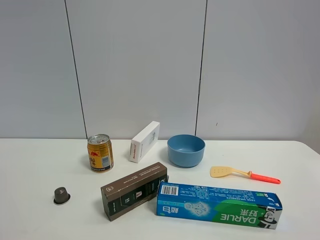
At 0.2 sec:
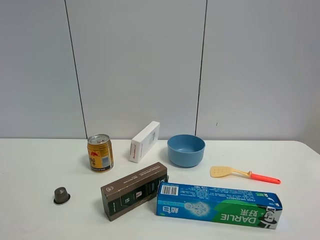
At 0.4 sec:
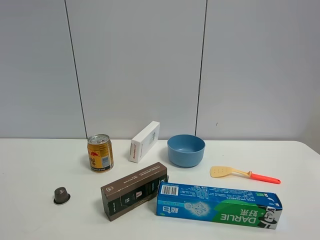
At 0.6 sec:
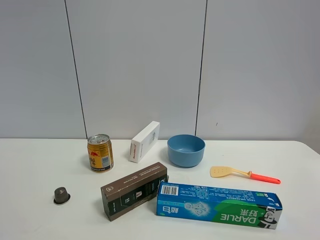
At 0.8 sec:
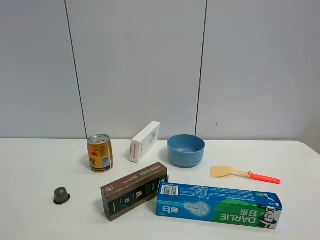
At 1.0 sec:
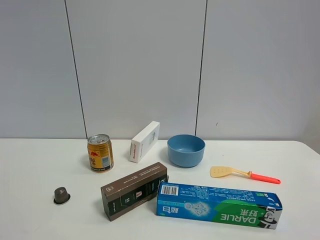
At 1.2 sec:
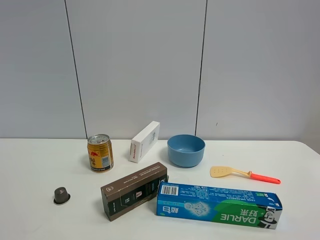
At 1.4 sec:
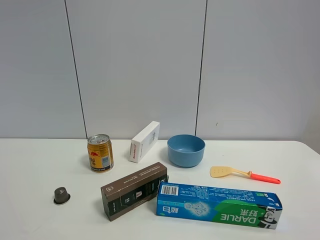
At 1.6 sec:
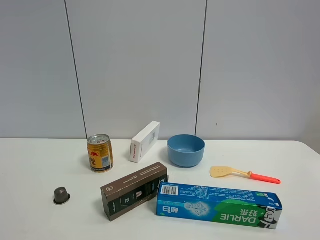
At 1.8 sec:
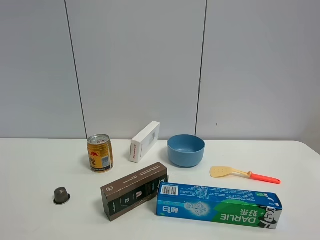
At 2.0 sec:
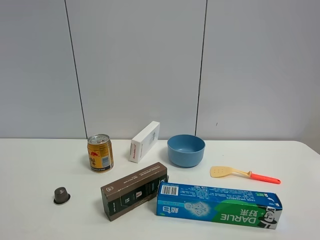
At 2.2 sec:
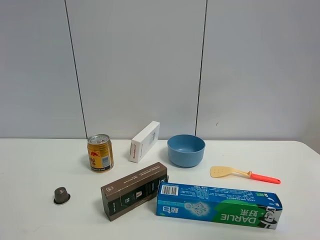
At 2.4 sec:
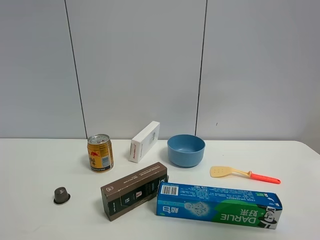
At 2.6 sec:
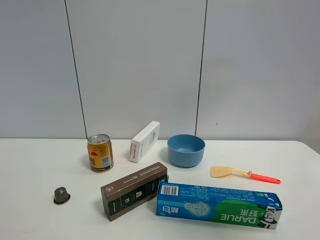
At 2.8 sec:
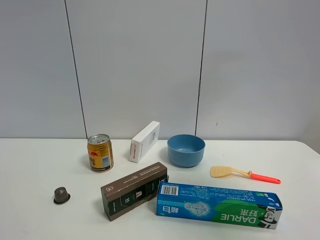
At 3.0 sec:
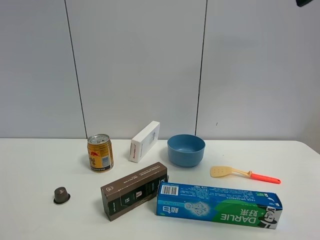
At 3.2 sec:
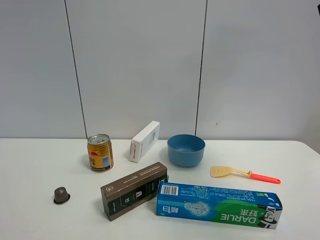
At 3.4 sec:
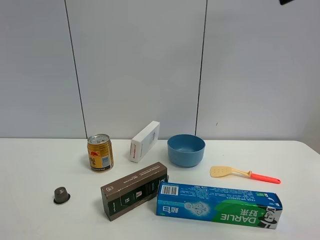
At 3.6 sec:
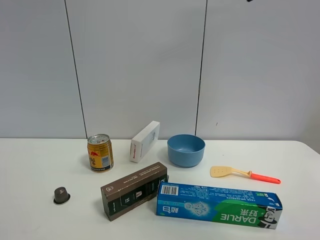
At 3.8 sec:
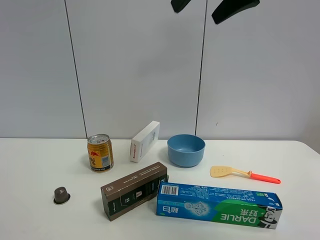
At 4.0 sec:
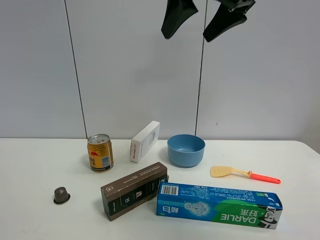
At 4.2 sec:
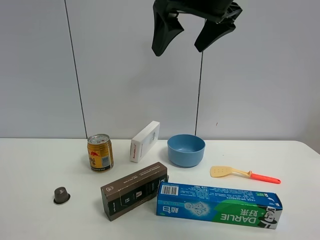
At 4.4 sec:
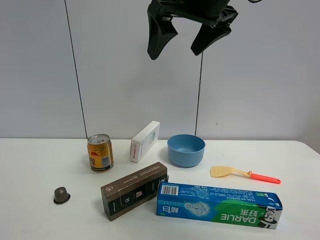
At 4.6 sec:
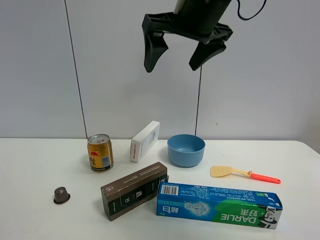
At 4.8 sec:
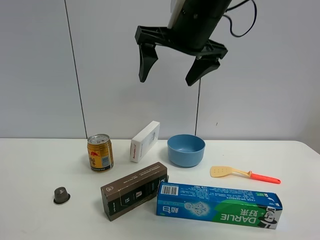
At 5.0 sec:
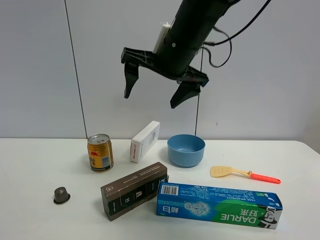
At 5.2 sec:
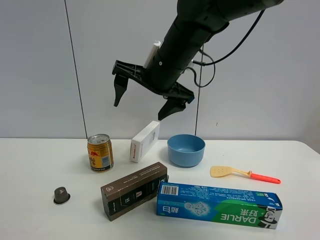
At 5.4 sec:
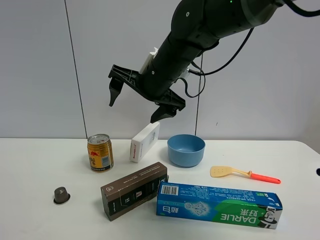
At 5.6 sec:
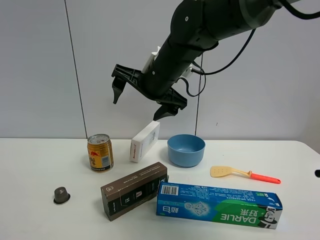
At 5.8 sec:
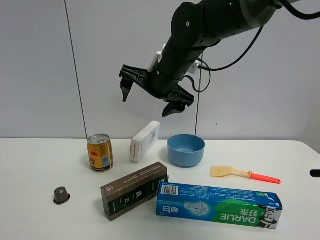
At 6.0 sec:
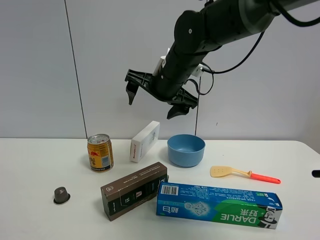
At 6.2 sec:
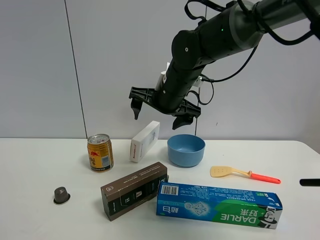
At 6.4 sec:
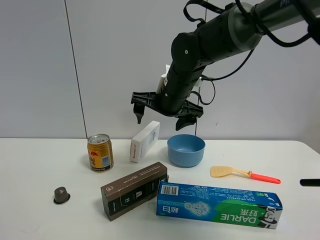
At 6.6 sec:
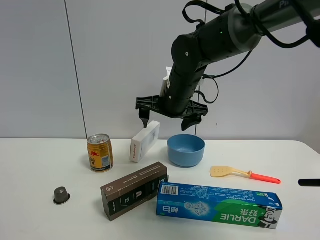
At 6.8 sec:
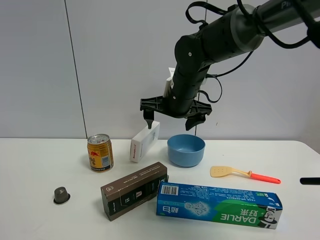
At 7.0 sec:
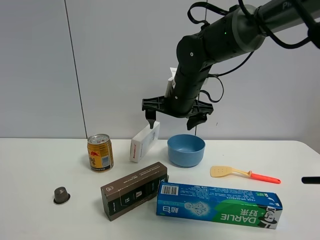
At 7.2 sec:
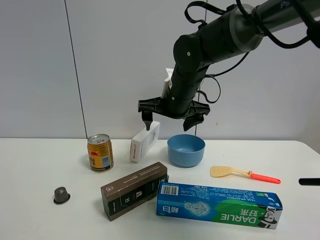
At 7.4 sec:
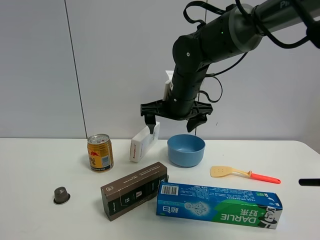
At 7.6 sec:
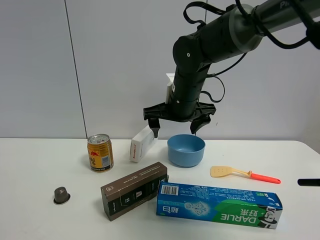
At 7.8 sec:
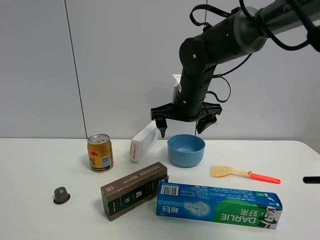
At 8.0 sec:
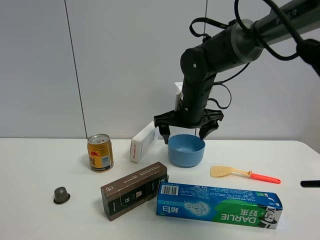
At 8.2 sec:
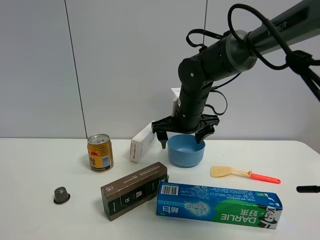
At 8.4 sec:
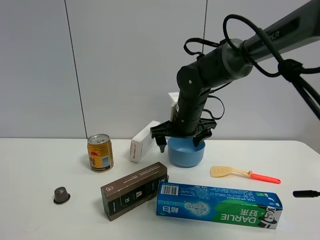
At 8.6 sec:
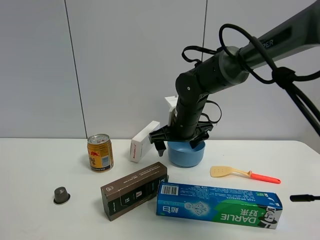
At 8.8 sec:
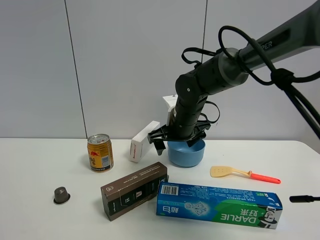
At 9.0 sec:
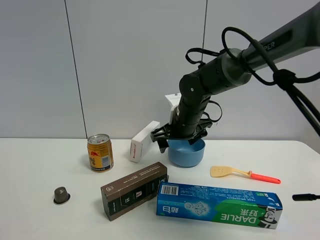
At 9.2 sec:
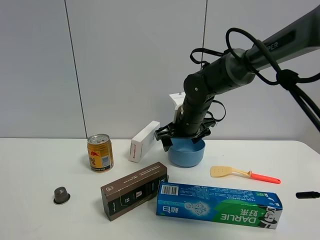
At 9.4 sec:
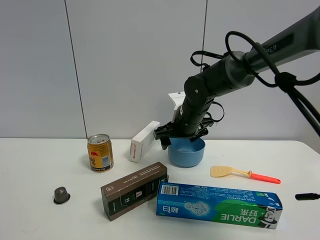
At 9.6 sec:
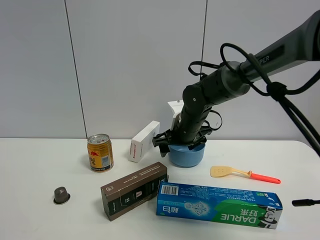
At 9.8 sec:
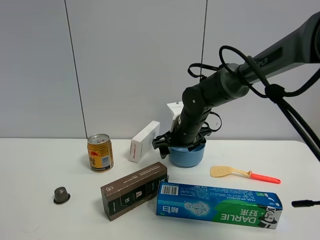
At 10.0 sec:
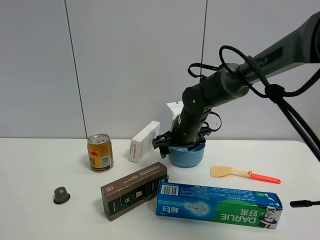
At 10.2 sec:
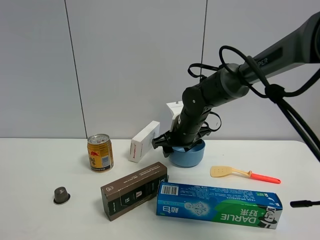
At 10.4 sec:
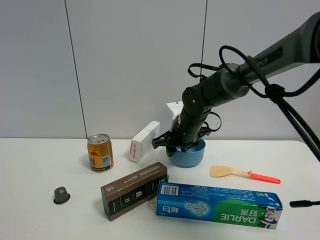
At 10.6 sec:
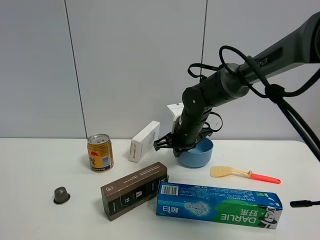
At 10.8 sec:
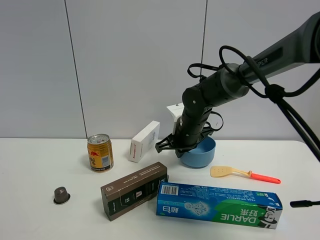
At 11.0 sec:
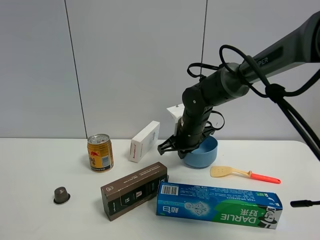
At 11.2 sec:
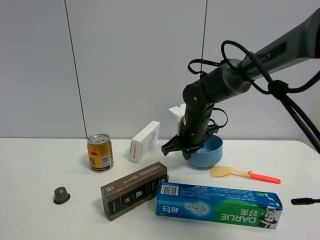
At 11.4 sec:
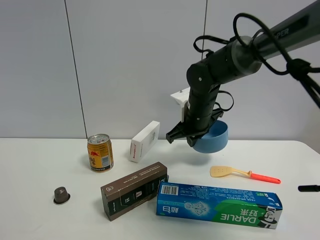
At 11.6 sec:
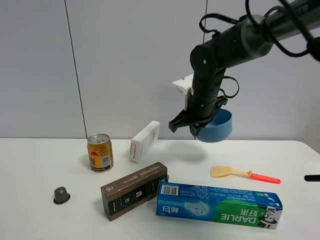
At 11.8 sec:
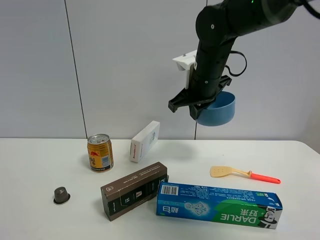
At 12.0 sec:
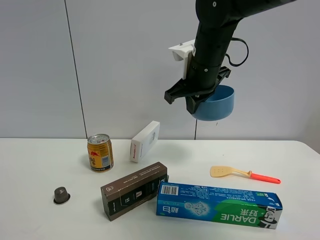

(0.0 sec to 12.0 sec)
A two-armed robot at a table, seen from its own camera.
Task of the whole recording: the gripper move the object.
Step, 0.0 sec - 10.6 sec: Grasp the blue bowl with the right gripper.
0.0 sec - 1.6 sec: Neither gripper changes place.
1.6 sec - 3.0 sec: The right gripper is displaced forward and upward by approximately 30 cm.
3.0 sec - 4.4 sec: The right gripper is displaced to the left by roughly 20 cm.
4.4 sec - 6.0 sec: The right gripper moves downward and forward, some 15 cm.
7.6 sec - 9.0 sec: The right gripper travels downward by about 5 cm.
9.0 sec - 10.4 sec: The right gripper closes its fingers.
10.4 sec - 12.0 sec: The right gripper moves upward and backward, approximately 15 cm, and closes up.

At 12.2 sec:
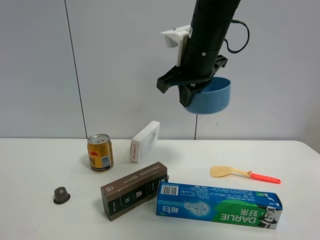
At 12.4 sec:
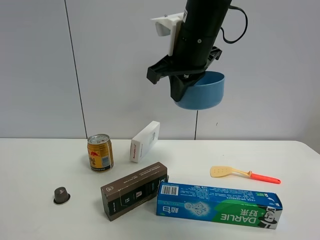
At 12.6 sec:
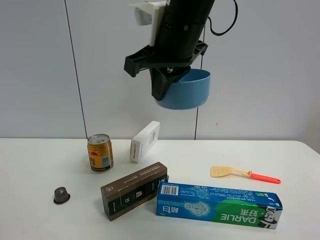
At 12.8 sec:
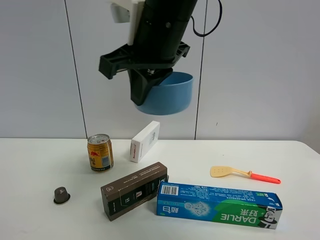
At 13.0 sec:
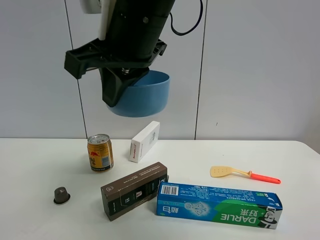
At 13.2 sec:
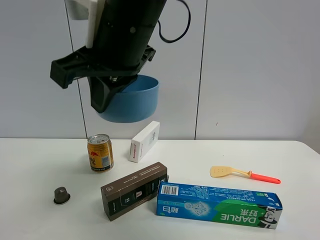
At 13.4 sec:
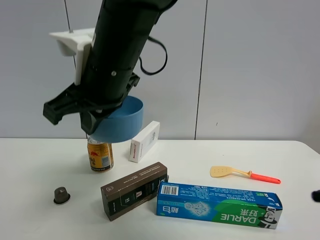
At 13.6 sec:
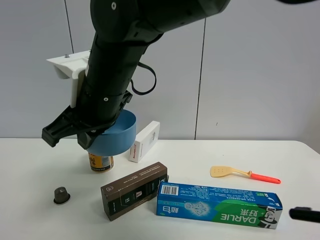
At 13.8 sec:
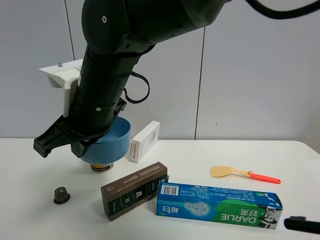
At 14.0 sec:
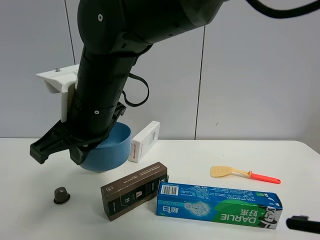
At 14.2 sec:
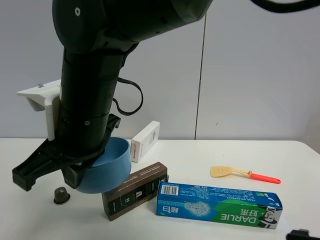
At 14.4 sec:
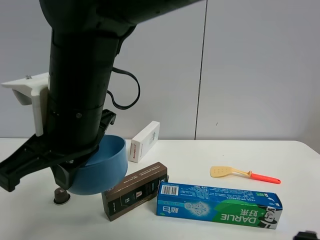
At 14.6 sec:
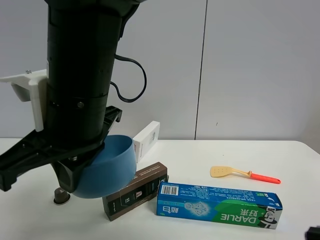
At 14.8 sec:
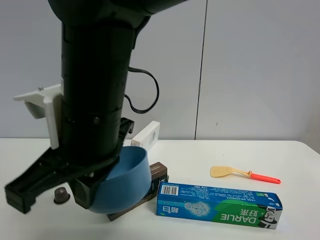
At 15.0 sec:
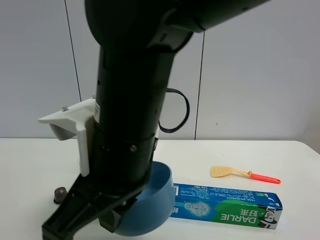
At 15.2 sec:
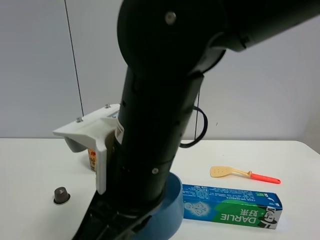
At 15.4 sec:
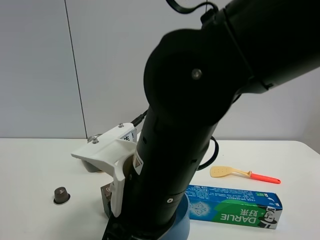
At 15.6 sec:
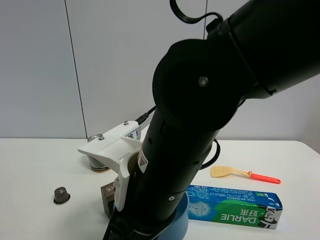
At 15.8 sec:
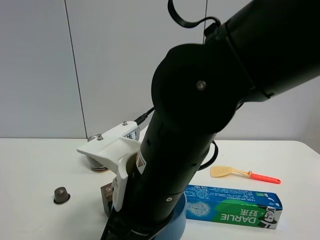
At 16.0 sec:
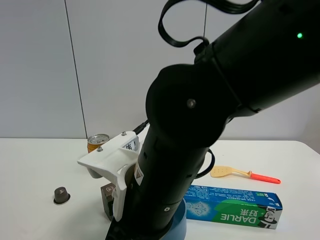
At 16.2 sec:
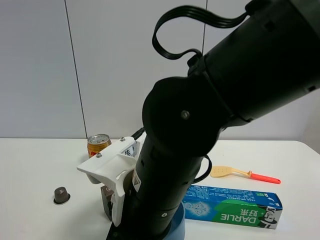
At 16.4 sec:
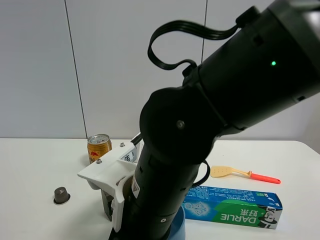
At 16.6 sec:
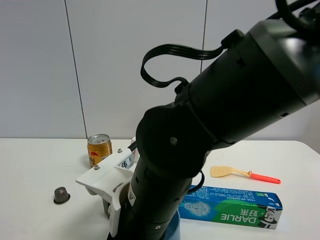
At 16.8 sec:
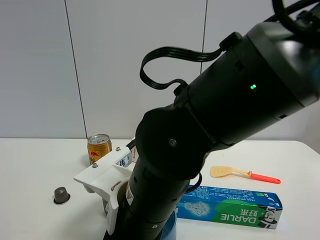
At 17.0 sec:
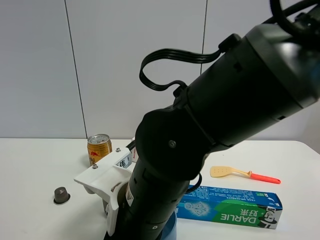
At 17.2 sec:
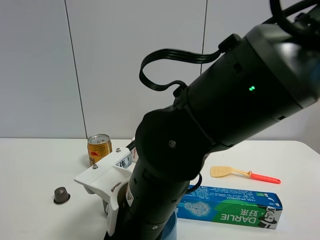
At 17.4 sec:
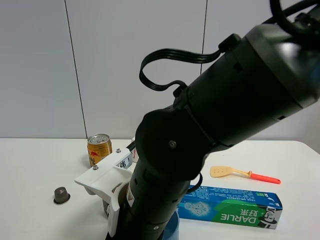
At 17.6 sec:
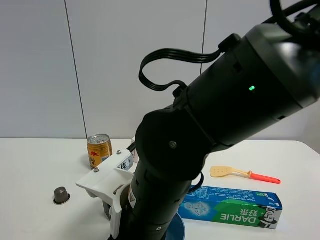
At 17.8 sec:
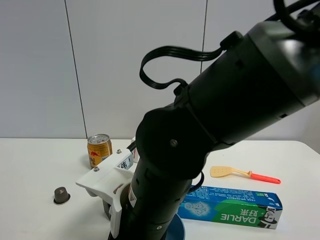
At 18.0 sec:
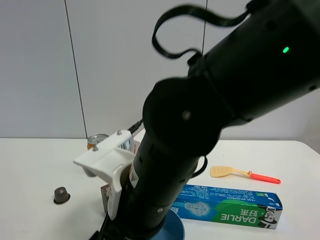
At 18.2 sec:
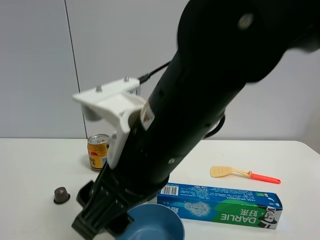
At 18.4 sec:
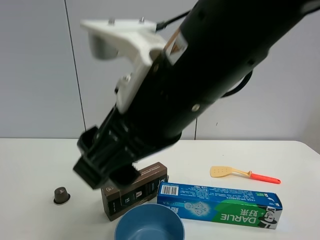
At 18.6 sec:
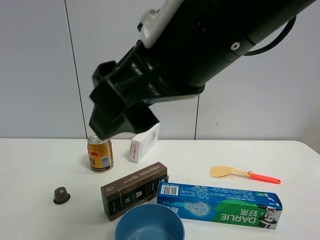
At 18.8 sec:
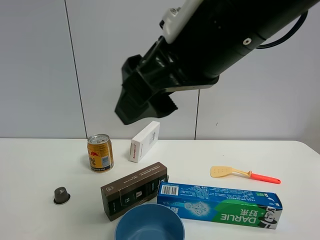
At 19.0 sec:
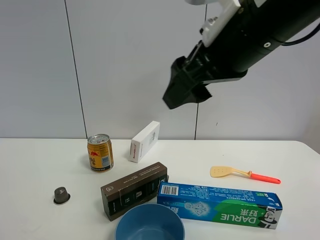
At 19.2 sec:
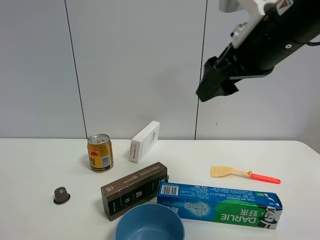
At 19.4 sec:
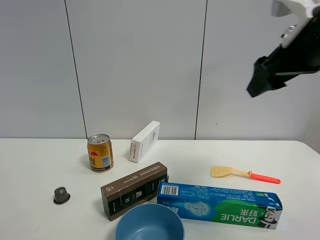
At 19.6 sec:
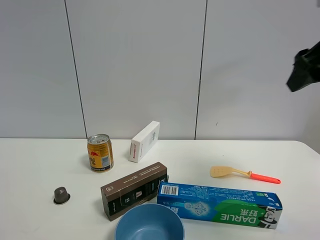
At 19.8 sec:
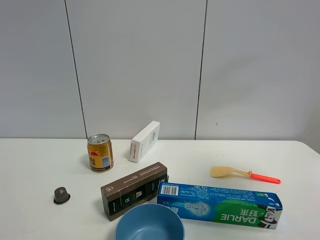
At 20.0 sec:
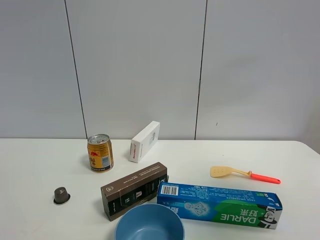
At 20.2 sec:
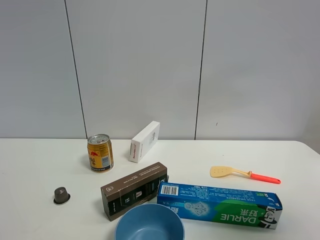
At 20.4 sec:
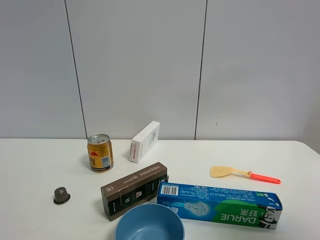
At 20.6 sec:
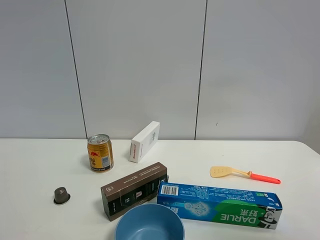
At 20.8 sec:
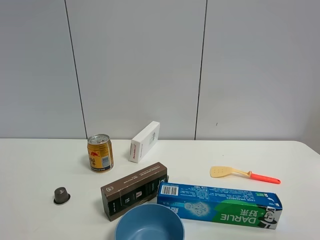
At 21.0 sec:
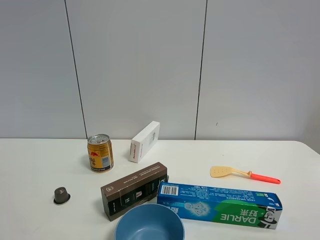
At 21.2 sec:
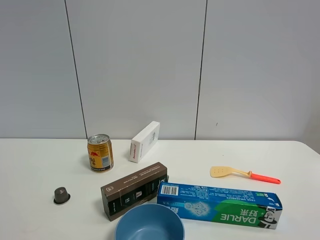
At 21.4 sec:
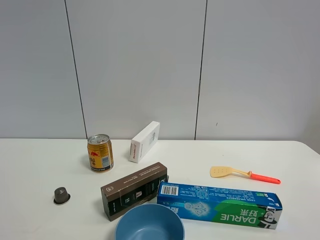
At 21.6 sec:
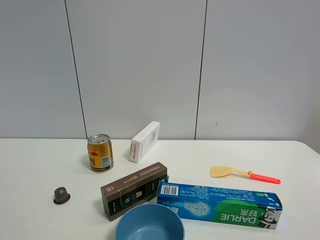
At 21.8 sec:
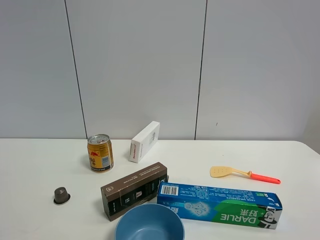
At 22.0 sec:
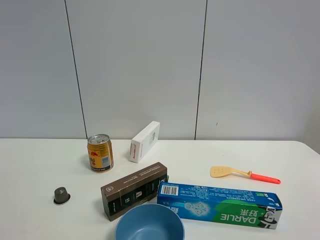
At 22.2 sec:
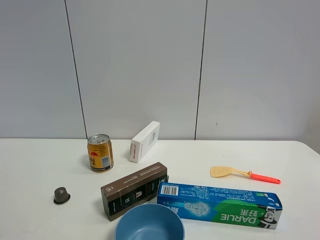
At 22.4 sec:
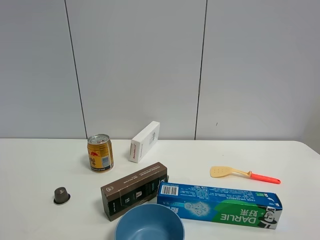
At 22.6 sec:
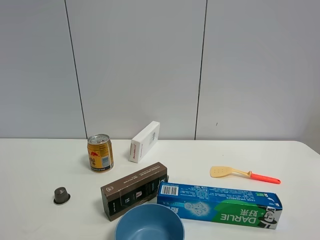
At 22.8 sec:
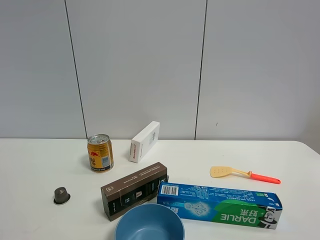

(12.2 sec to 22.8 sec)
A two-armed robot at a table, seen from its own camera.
Task of the whole recording: the gripper move the object.
Step, 12.2 sec - 17.8 sec: Place the blue bowl on the table with the right gripper.
12.2 sec - 13.8 sec: The right gripper goes about 20 cm to the left, backward and downward.
13.8 sec - 15.2 sec: The right gripper travels backward and to the right by some 15 cm.
15.2 sec - 16.8 sec: The right gripper is displaced downward by roughly 5 cm.
16.8 sec - 18.2 sec: The right gripper moves upward, some 10 cm, and opens up.
18.2 sec - 19.8 sec: The right gripper moves to the right and upward, about 35 cm.
19.8 sec - 21.2 sec: The right gripper travels backward and downward by roughly 25 cm.
21.2 sec - 22.8 sec: The two grippers keep their place.
